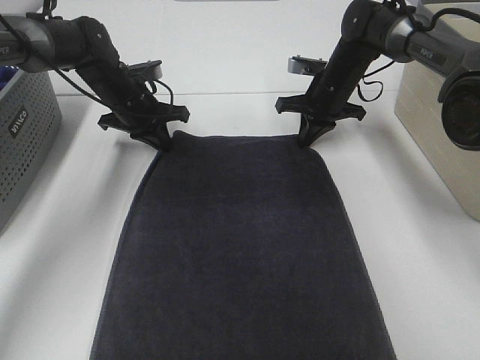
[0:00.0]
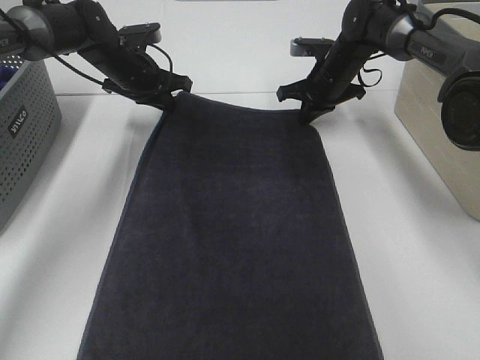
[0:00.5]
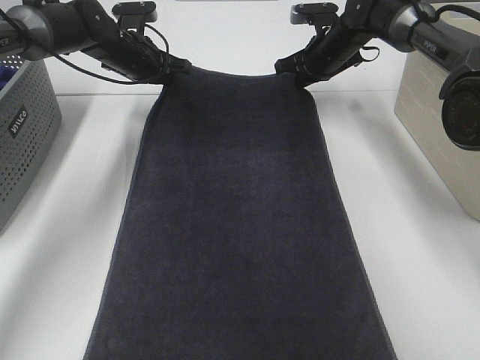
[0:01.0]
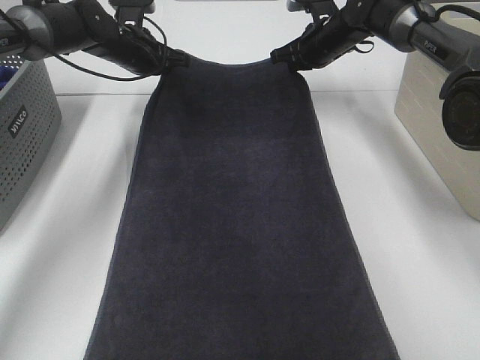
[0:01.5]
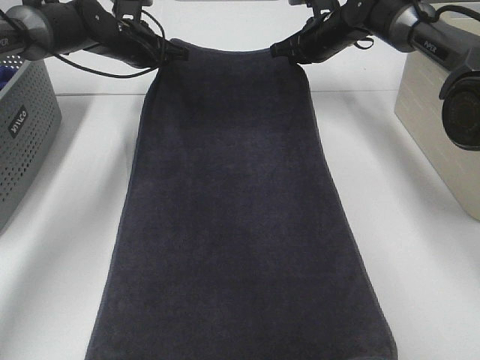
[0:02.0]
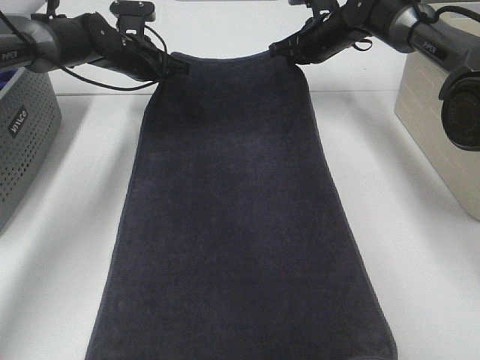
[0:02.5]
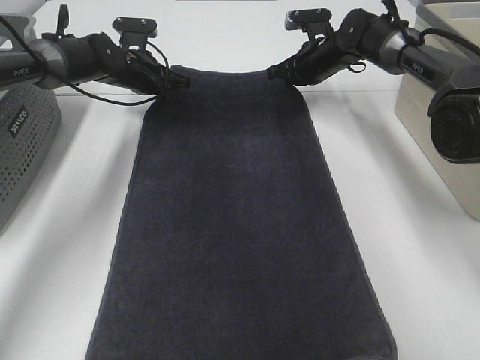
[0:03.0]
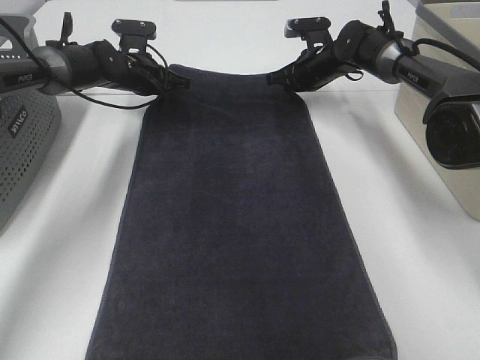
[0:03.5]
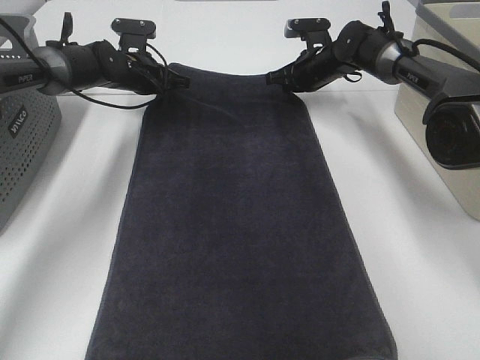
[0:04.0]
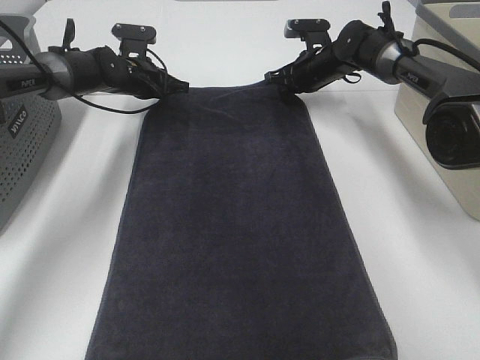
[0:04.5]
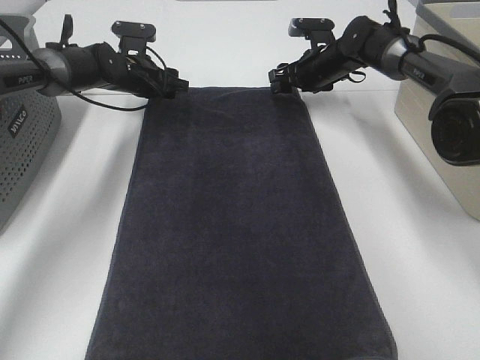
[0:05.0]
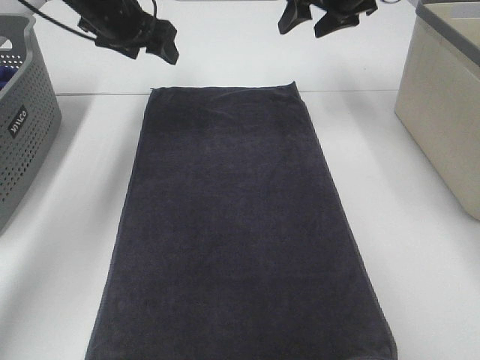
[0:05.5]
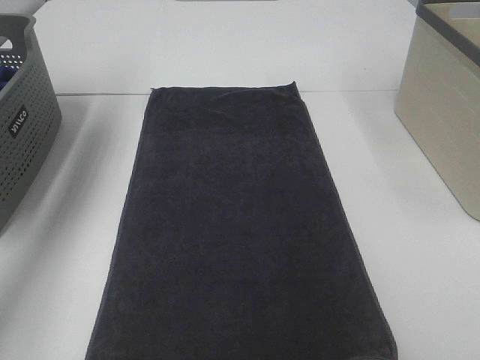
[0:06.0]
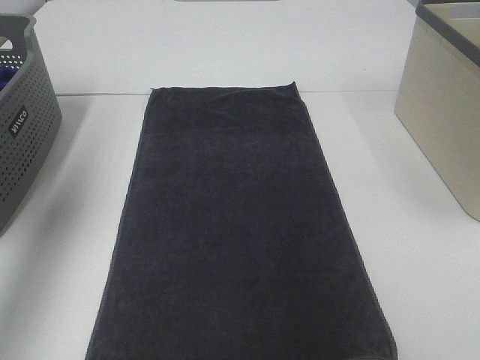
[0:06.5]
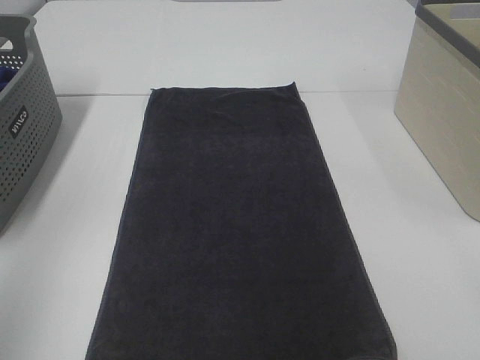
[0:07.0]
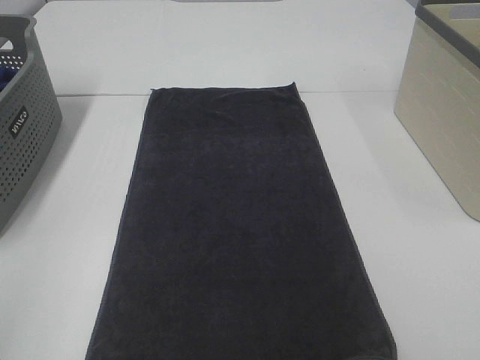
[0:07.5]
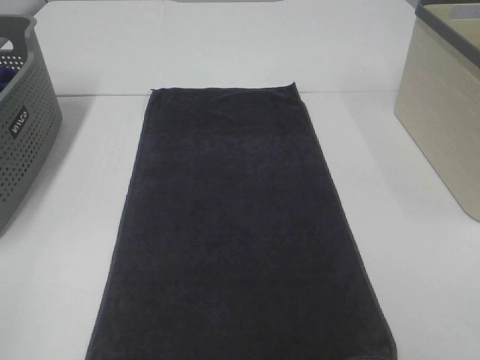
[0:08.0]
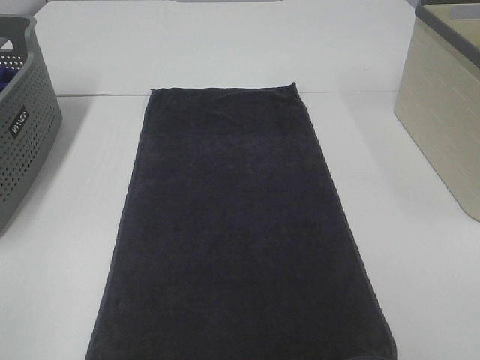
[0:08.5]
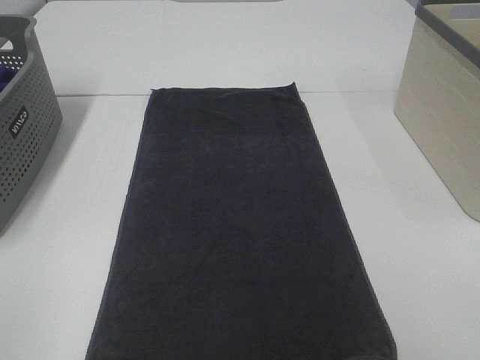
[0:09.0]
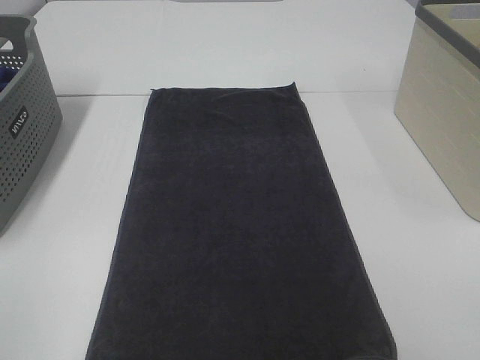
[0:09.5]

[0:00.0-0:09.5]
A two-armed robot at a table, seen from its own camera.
Task of the whole recording: Remove the towel and place it.
0:00.0 to 0:02.0: The grippers both shift forward and upward by about 10 cm.
0:02.0 to 0:04.0: Both grippers move downward, about 5 cm.
0:04.0 to 0:05.5: The right gripper moves upward, roughly 20 cm, and opens. The left gripper shifts approximately 15 cm upward and backward, and opens up.
0:05.5 to 0:07.5: Both grippers move backward, about 50 cm.

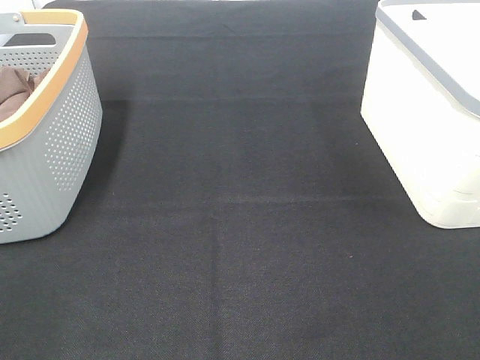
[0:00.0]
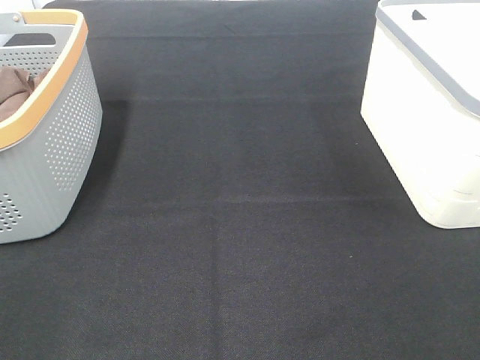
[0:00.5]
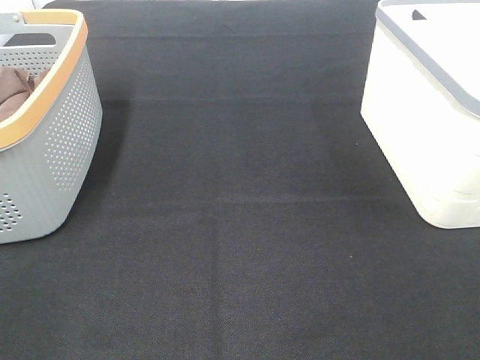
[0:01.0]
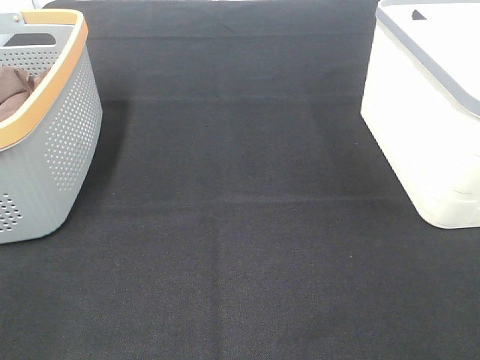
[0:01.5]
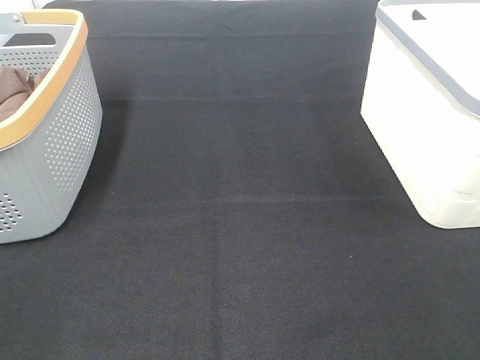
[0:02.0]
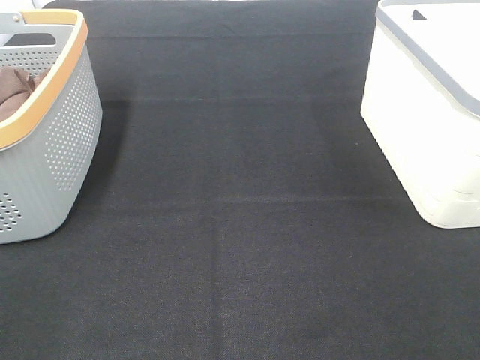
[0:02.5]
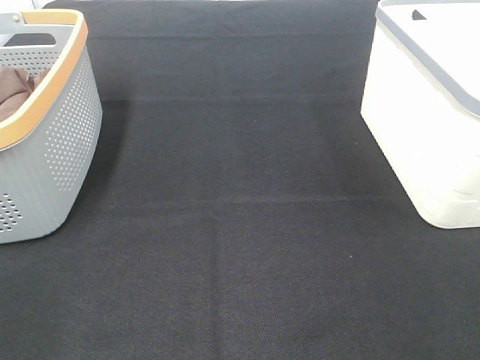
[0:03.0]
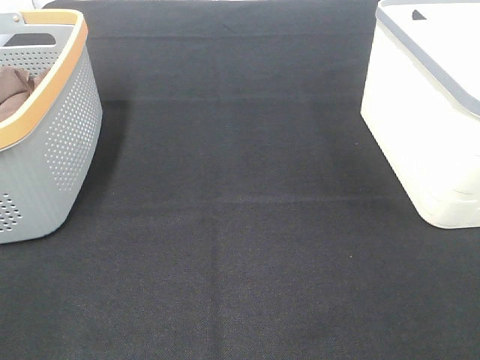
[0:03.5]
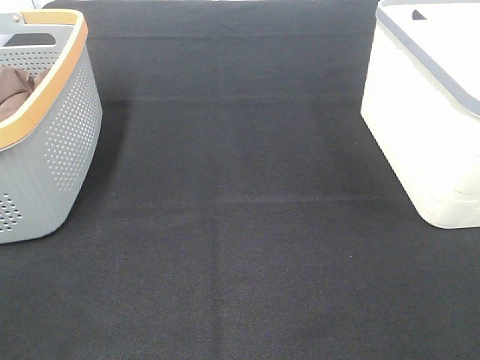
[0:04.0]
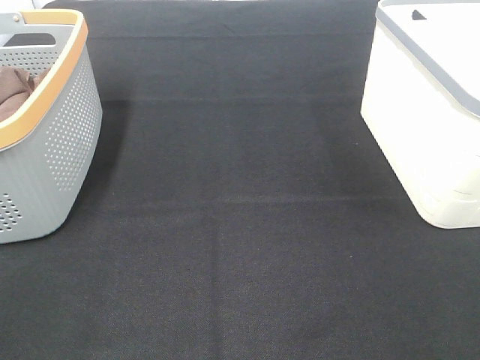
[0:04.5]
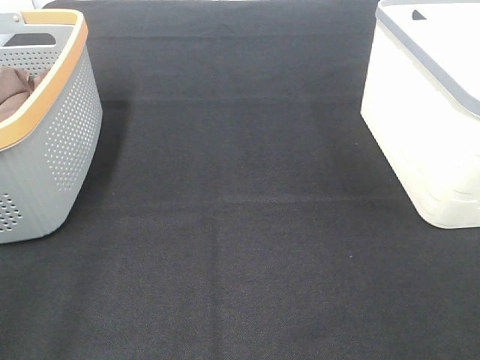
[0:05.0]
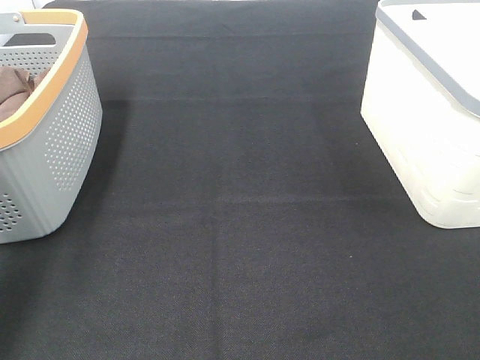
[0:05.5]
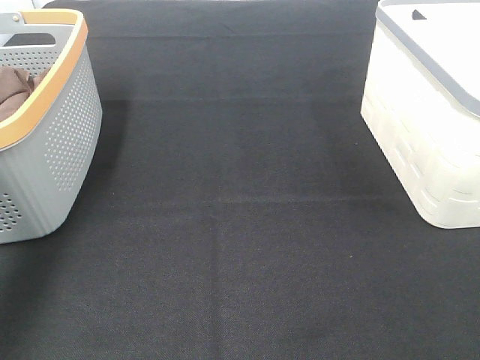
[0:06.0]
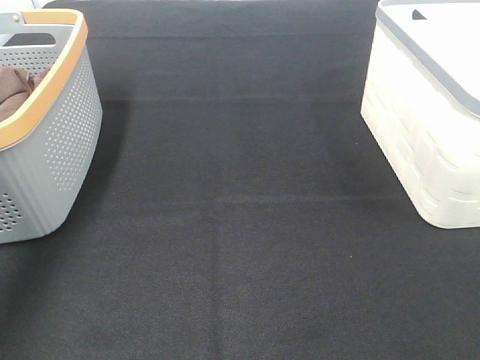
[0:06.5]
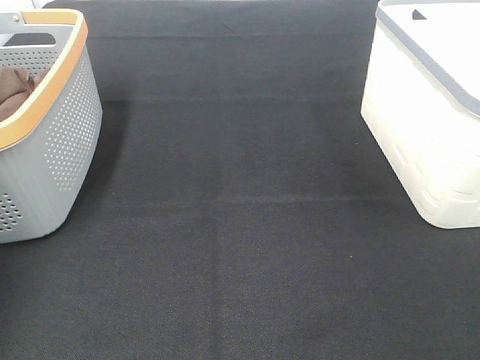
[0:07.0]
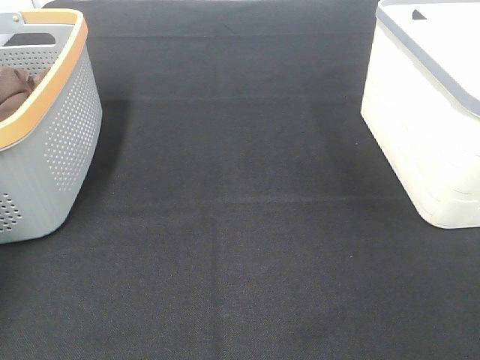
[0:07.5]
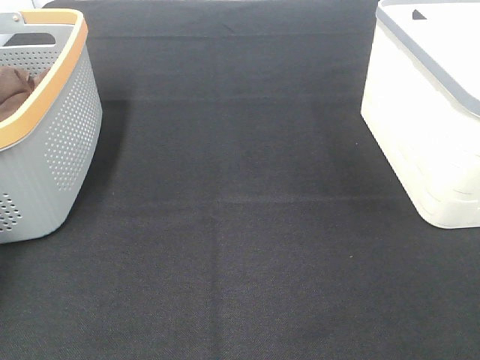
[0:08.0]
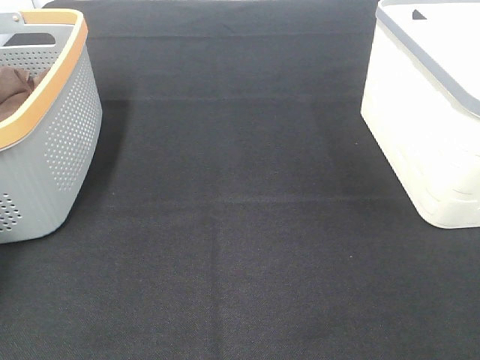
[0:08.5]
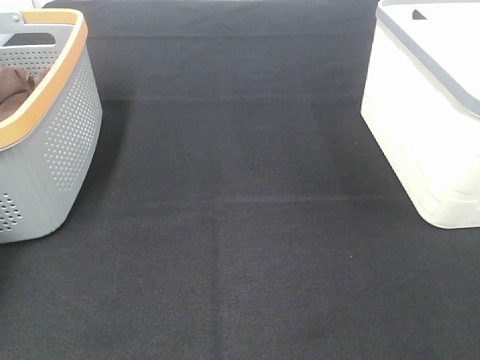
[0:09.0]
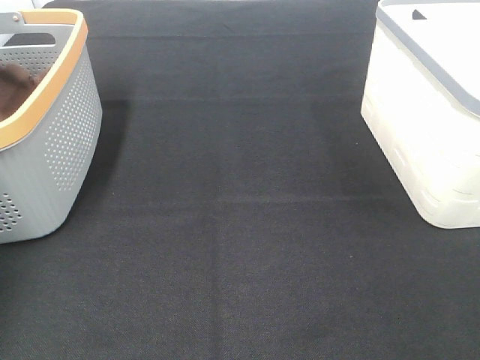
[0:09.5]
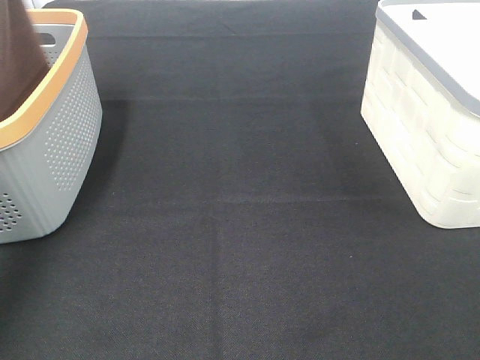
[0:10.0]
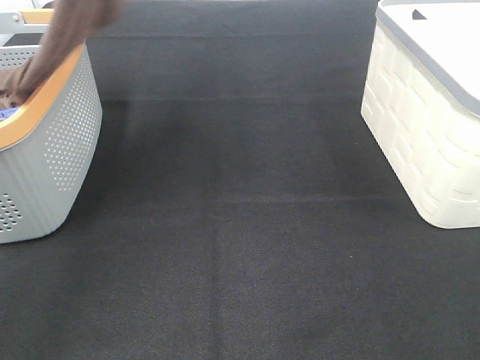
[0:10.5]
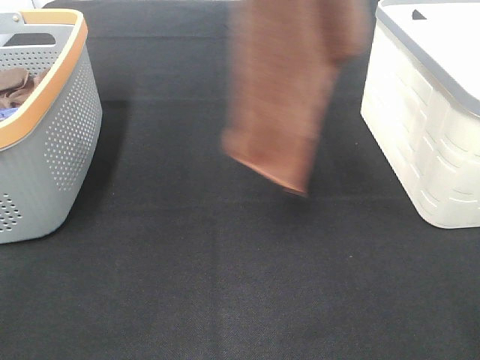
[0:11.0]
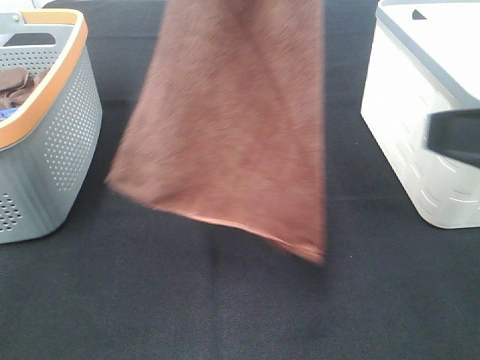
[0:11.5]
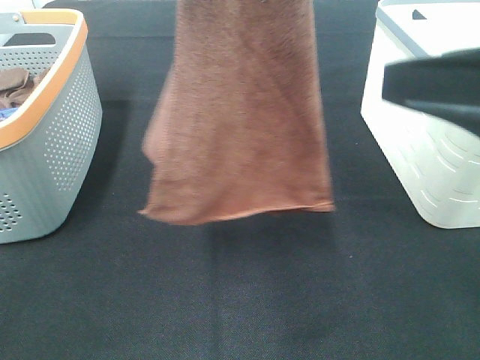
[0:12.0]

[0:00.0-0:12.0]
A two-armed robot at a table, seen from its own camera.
Task of the whole recording: Remove the towel and place it.
0:00.0 to 0:02.0: Neither gripper changes place.
0:04.0 to 0:06.0: The left gripper goes about 30 cm forward.
0:06.0 to 0:08.0: The left gripper travels forward, downward and to the left by some 25 cm.
0:08.0 to 0:10.0: The left gripper travels upward and to the right by about 30 cm, and closes.
0:10.0 to 0:12.0: The right gripper heads forward and to the left, covering roughly 15 cm, while the left gripper shifts roughly 25 cm to the right and backward.

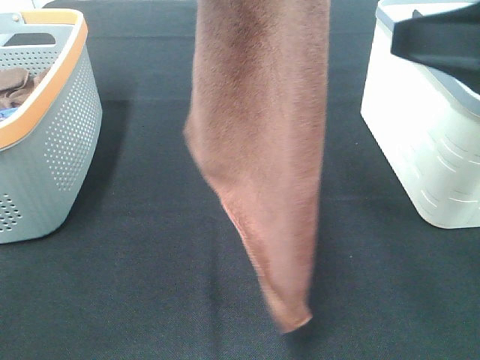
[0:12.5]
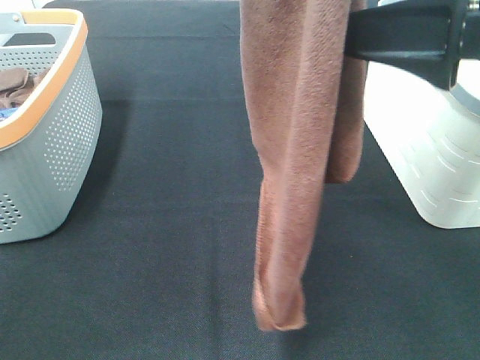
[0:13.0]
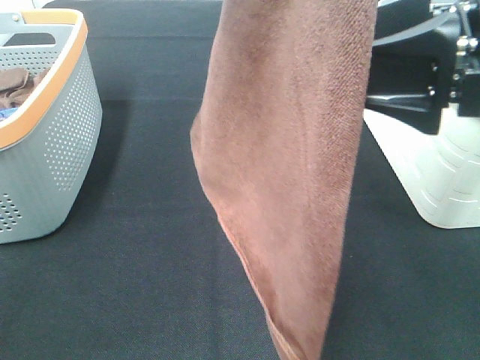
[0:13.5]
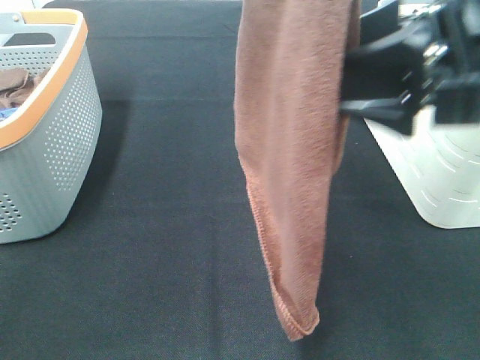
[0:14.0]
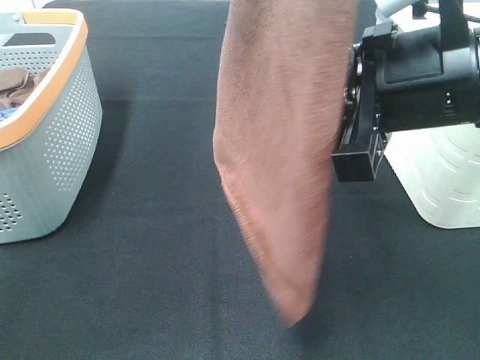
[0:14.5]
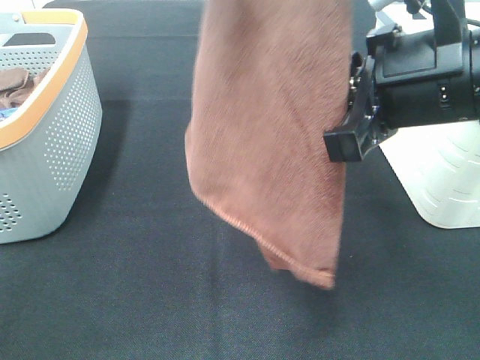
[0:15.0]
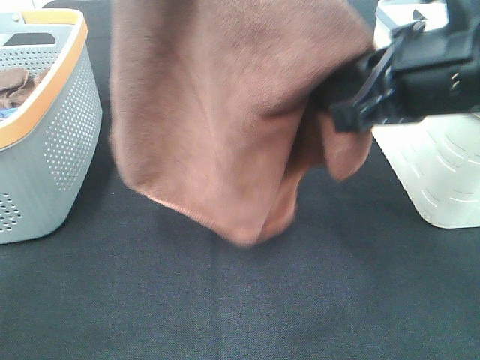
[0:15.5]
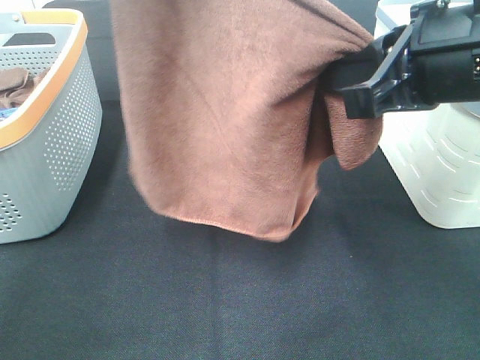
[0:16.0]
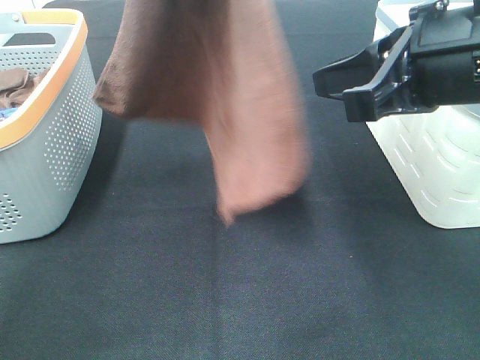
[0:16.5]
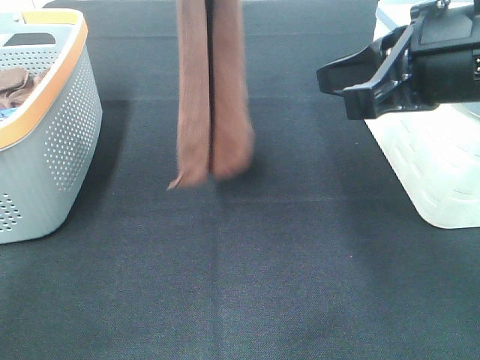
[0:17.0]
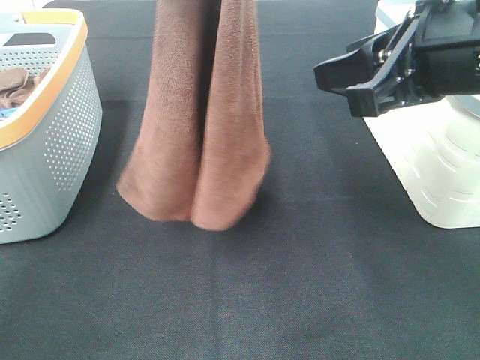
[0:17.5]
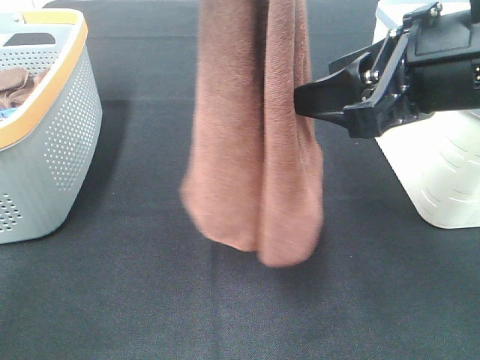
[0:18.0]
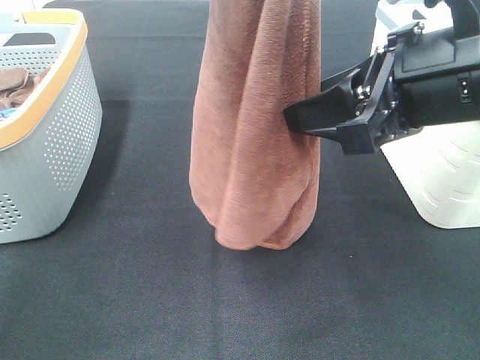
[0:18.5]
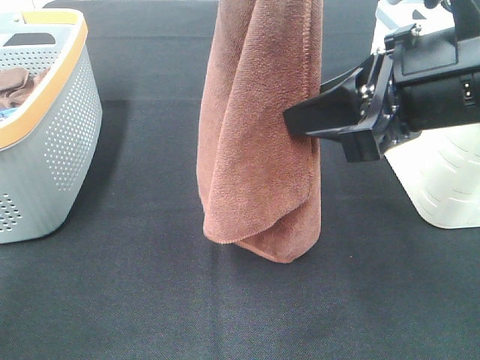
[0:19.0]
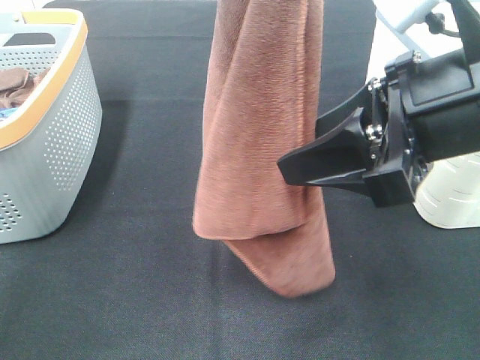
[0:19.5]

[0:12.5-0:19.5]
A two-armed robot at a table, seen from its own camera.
Task of the whole recording: Remove the towel and place it.
0:12.5 to 0:14.5: The right gripper is displaced to the left by about 10 cm, and closes.
0:14.5 to 0:16.0: The left gripper is displaced forward and downward by some 10 cm.
0:16.0 to 0:17.5: The right gripper opens.
